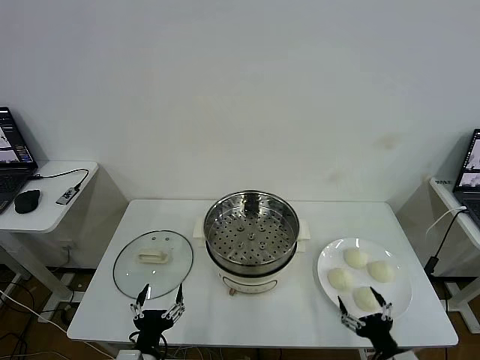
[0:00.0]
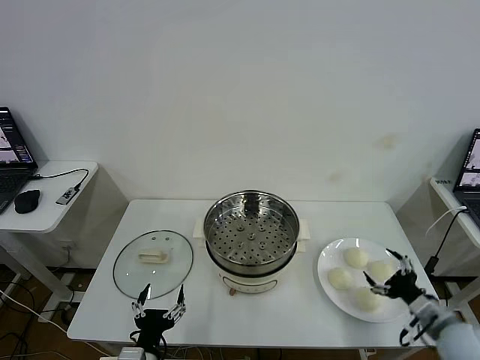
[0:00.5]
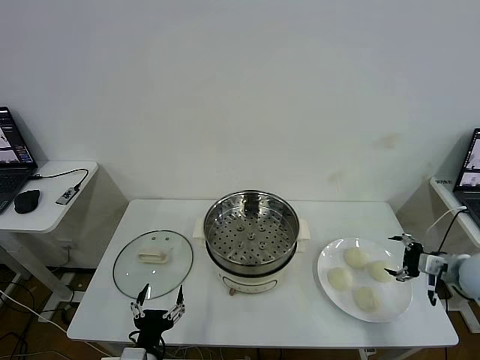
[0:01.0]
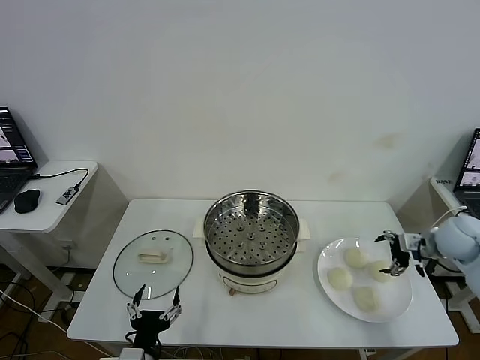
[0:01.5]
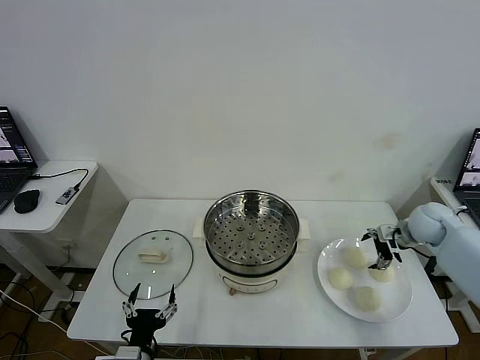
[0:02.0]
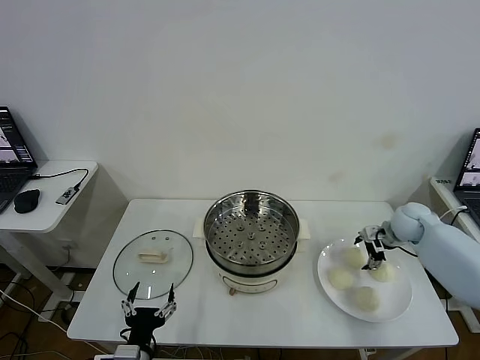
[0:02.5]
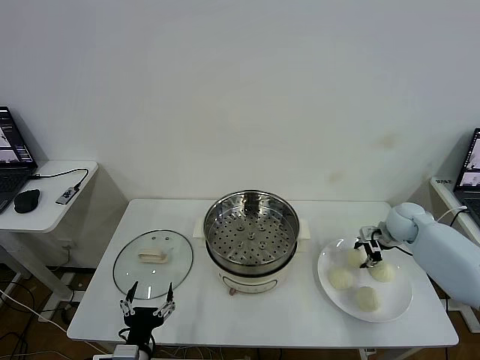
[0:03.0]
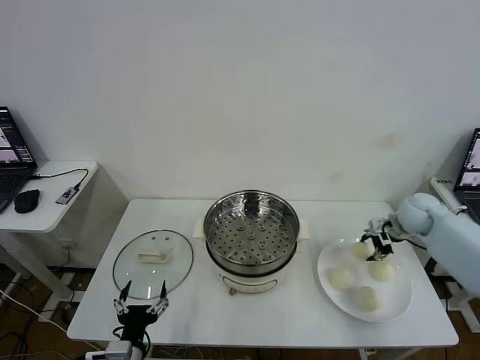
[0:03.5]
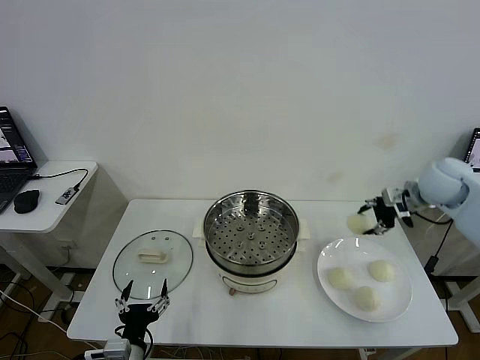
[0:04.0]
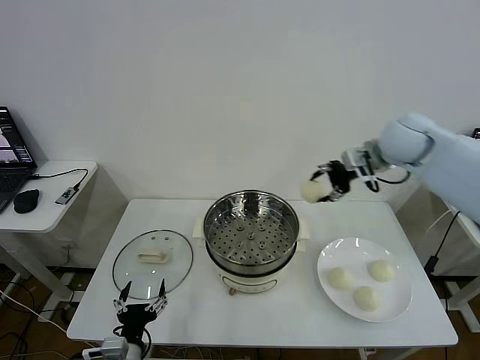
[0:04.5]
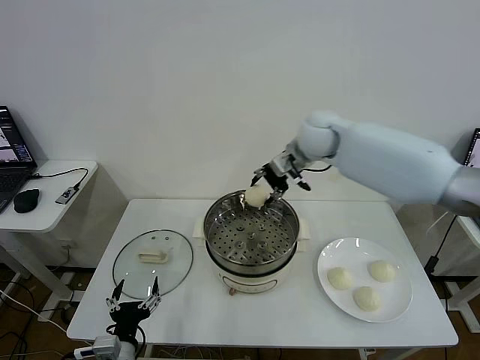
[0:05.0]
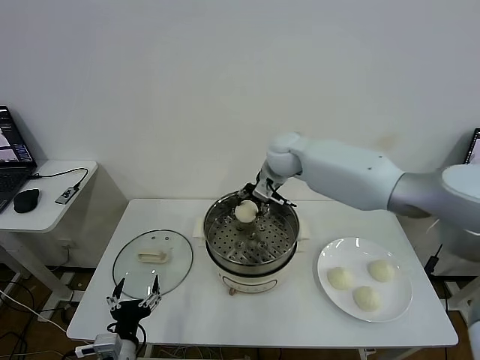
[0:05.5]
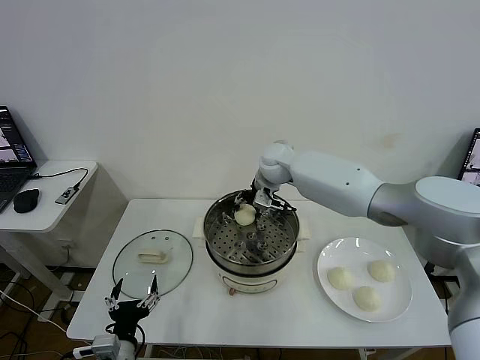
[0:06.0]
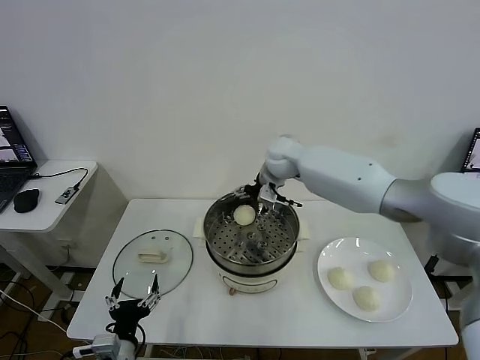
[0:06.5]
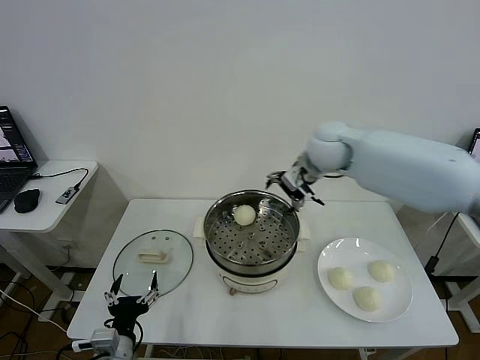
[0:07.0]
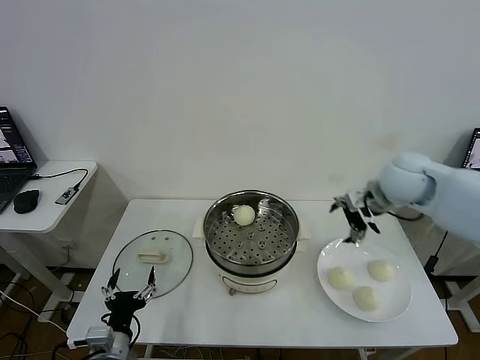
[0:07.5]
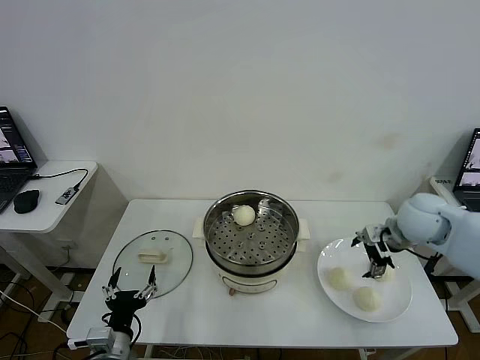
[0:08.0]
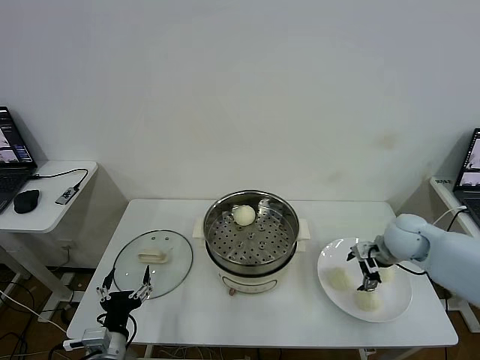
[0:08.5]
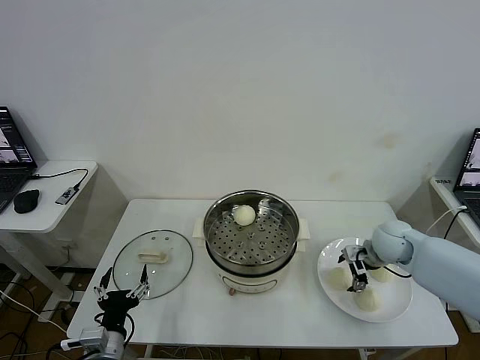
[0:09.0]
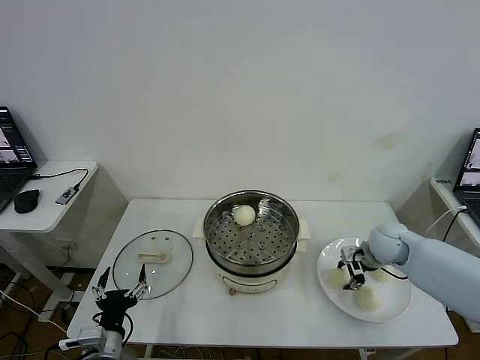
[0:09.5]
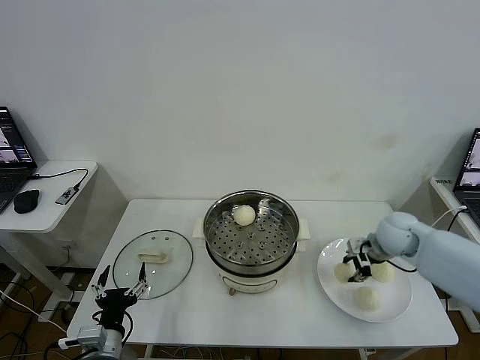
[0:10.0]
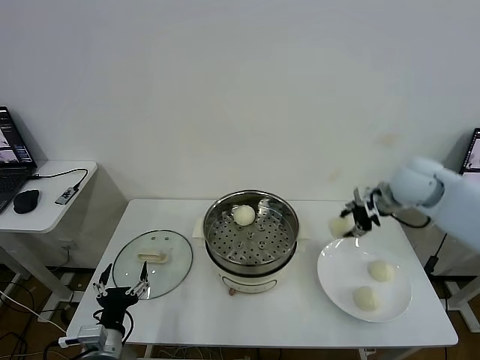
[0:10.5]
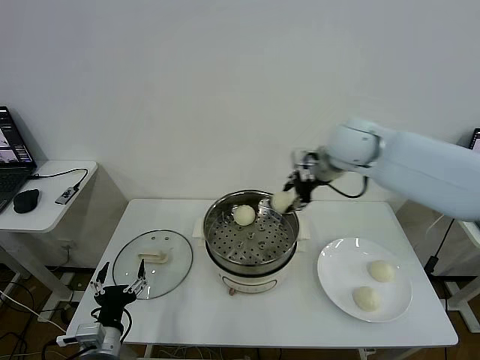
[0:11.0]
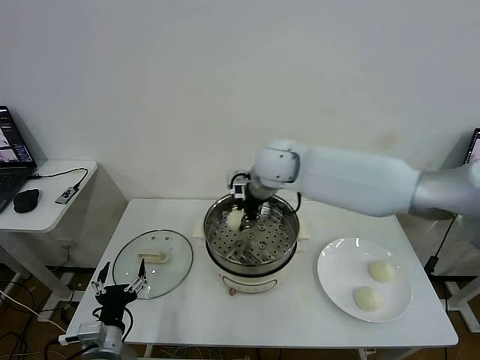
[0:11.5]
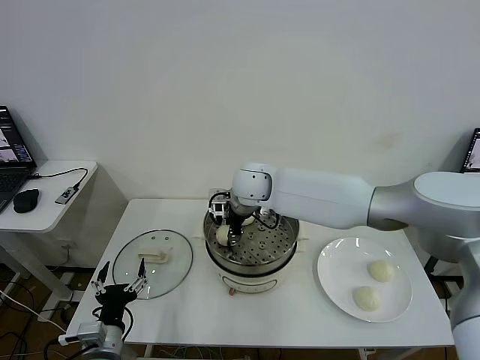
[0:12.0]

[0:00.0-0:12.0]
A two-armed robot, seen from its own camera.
Task of the whole recording: take steamed baozi put them in steamer then cover it.
Step, 0:00.0 to 0:02.5: Grasp the baozi in the plate with right gripper.
Step, 0:03.0 to 0:06.0: Place the baozi on the steamer with right gripper.
Step, 0:06.5 to 0:09.0: Grasp the baozi in the plate with right gripper.
0:02.0 to 0:04.0: The right gripper shifts roughly 15 cm upward, and closes.
0:04.0 to 0:06.0: The right gripper heads to the left, covering some 30 cm, and opens up.
0:06.0 to 0:08.0: The right gripper moves to the right and backward, about 35 cm, and opens its fingers.
0:08.0 to 0:10.0: The right gripper closes up.
0:10.0 to 0:12.0: The right gripper moves to the left, about 35 cm, and opens up.

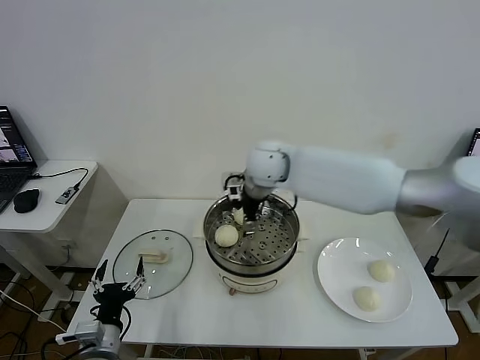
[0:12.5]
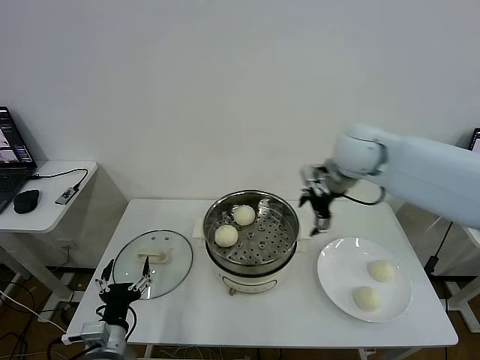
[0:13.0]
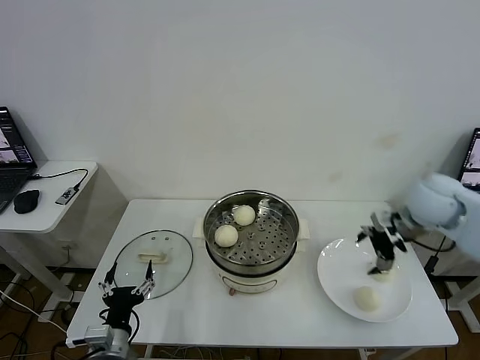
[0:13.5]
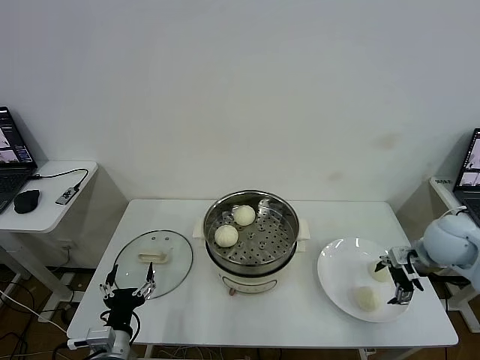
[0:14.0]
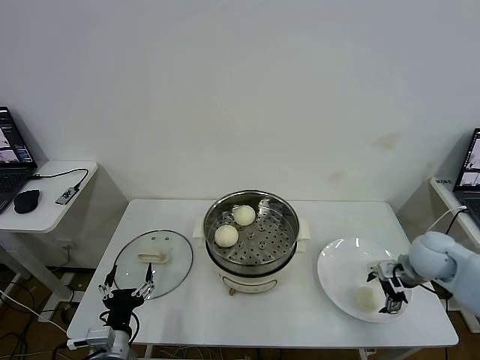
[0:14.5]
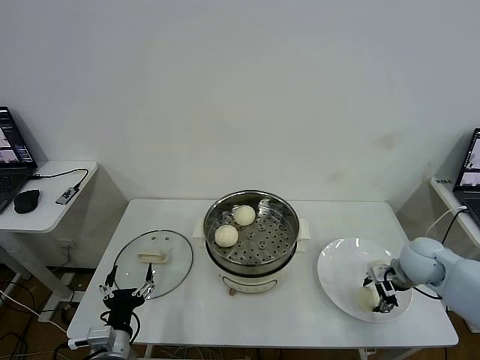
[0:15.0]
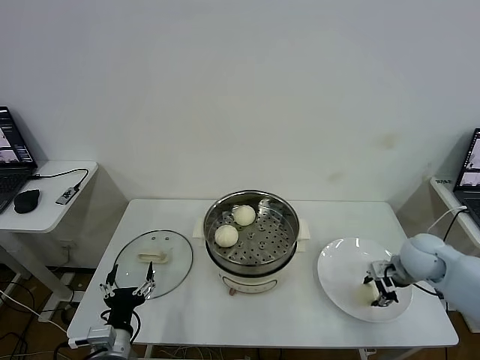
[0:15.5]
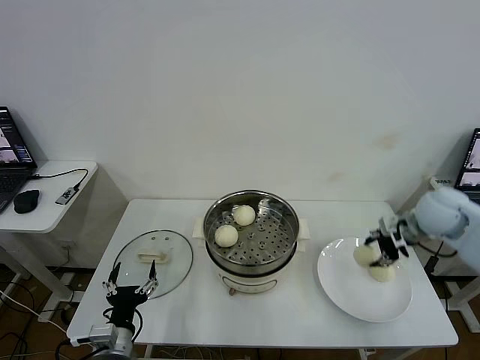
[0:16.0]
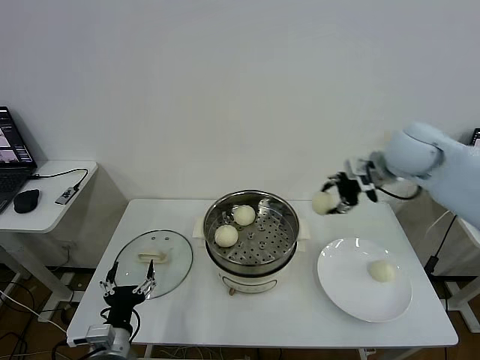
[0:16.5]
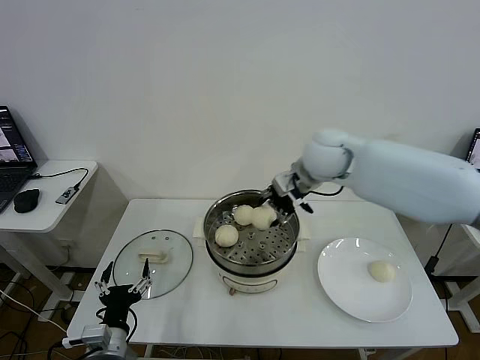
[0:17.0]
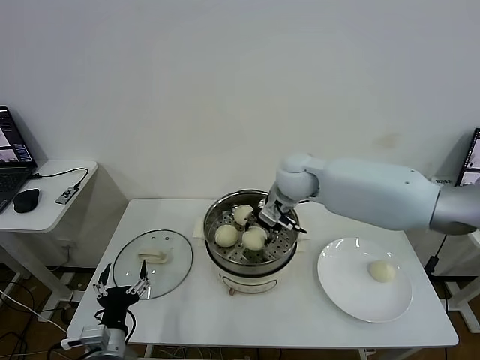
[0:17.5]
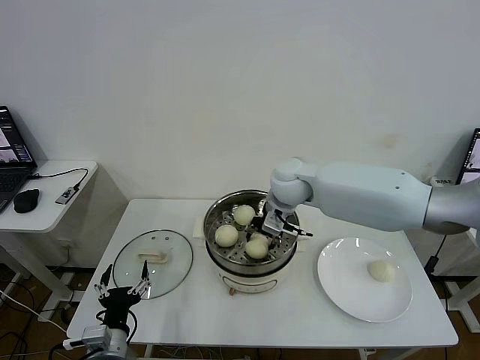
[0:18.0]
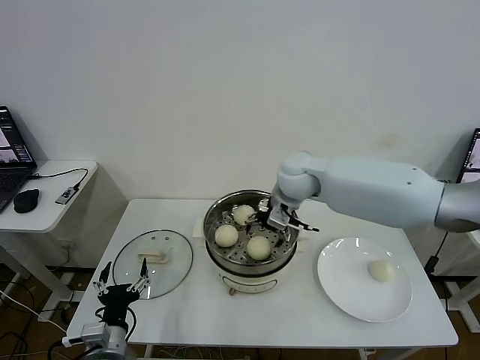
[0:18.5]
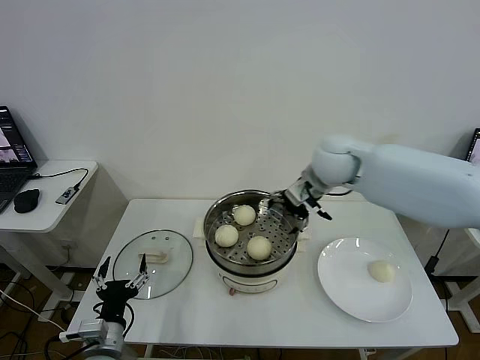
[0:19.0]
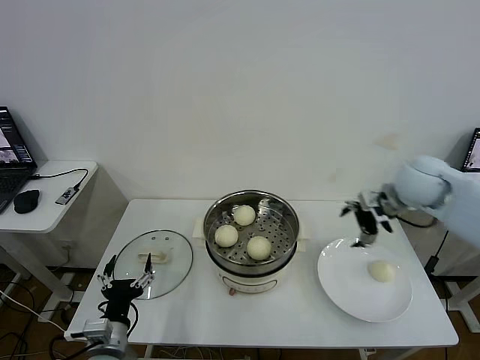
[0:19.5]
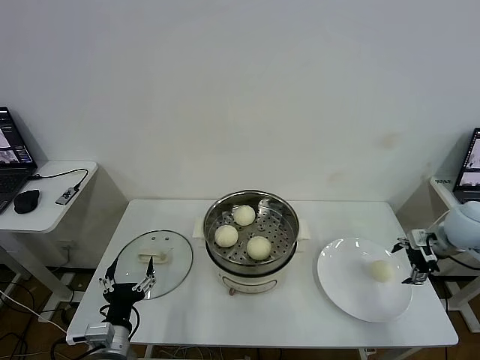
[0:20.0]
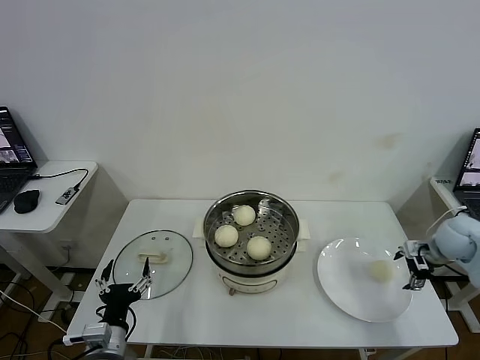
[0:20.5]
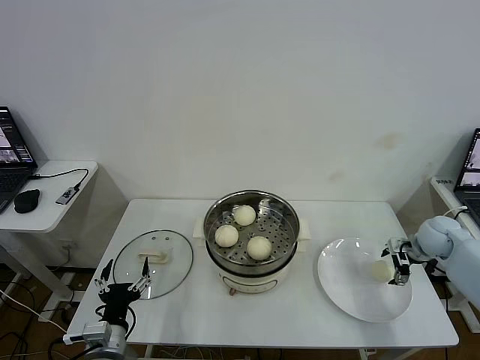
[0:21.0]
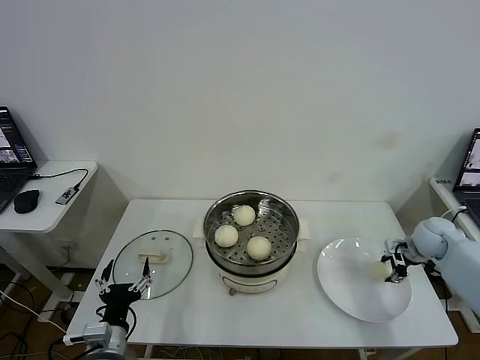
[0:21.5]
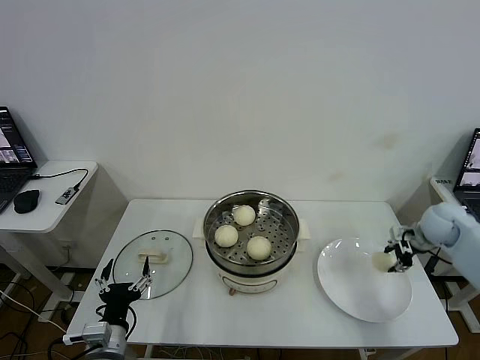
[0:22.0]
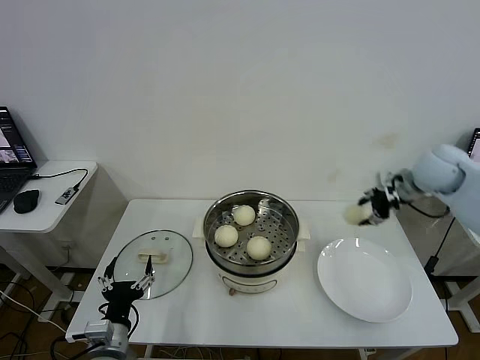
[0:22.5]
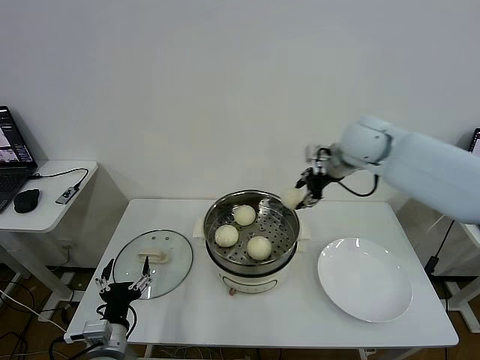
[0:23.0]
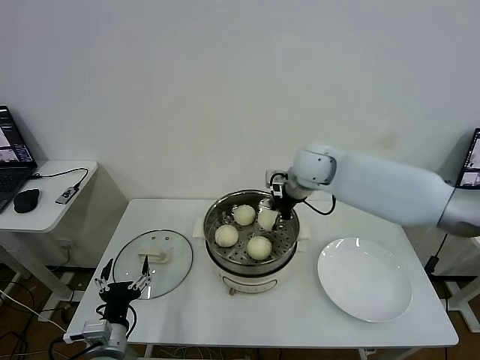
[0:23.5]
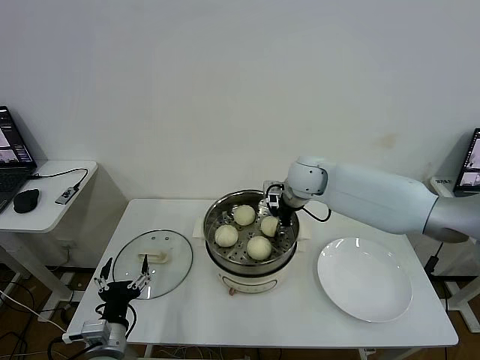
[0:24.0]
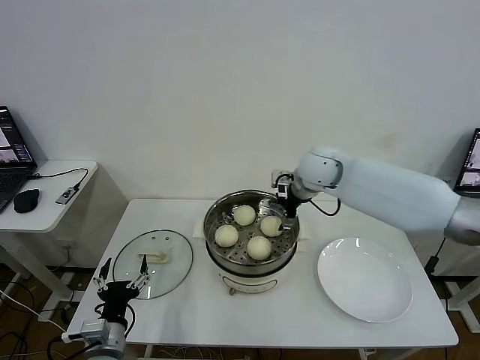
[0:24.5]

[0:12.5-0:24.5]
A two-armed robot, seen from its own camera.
Task of the whole recording: take steamed baozi put them in steamer then cover it.
Step, 0:12.5 to 0:15.0: Grasp the baozi in the plate with right gripper.
Step, 0:15.5 to 0:18.5: Place the baozi on the steamer with right gripper.
Step, 0:19.0 to 0:21.5: Grasp the baozi in the plate with right gripper.
Step, 0:22.0 to 0:24.0: Place the baozi on the steamer with right gripper.
0:12.5 to 0:14.5: The right gripper goes some 40 cm to the right and downward.
0:14.5 to 0:16.5: The right gripper goes approximately 25 cm upward, to the left and forward, and closes its fingers.
0:16.5 to 0:18.5: The right gripper travels to the left and downward by some 20 cm, and opens.
0:18.5 to 0:20.5: The right gripper is displaced to the right by some 40 cm.
0:20.5 to 0:22.5: The right gripper shifts roughly 20 cm upward, to the left and forward, and closes up.
0:22.5 to 0:24.5: The right gripper is displaced to the left by approximately 25 cm, and opens.

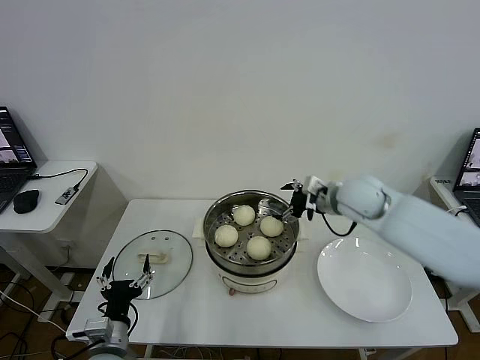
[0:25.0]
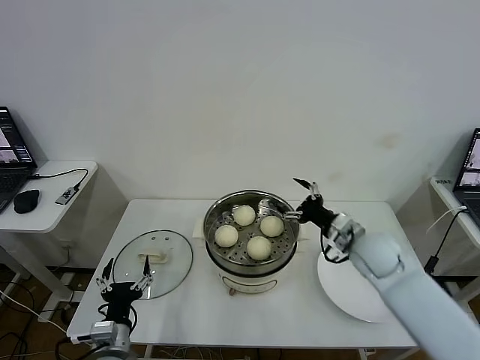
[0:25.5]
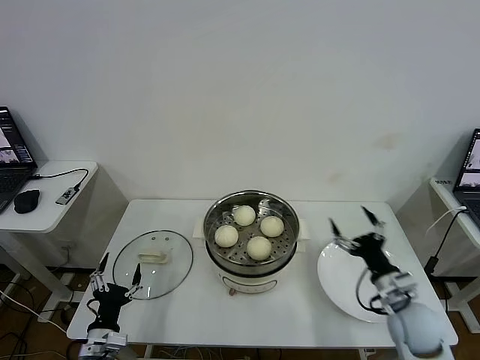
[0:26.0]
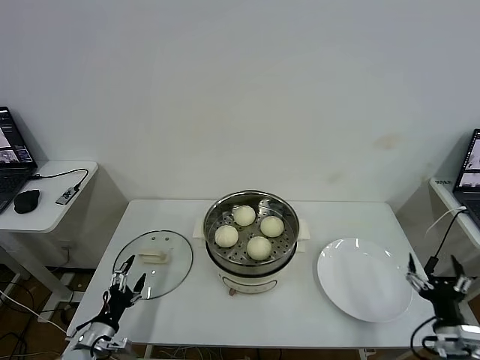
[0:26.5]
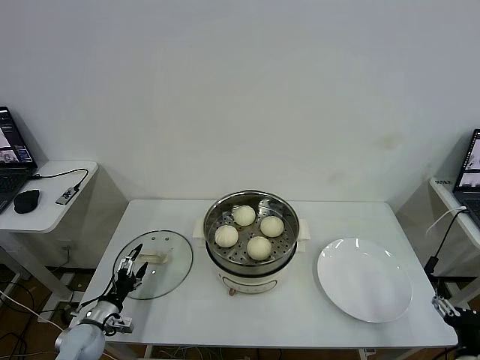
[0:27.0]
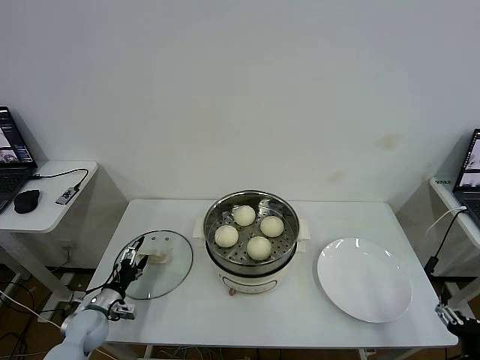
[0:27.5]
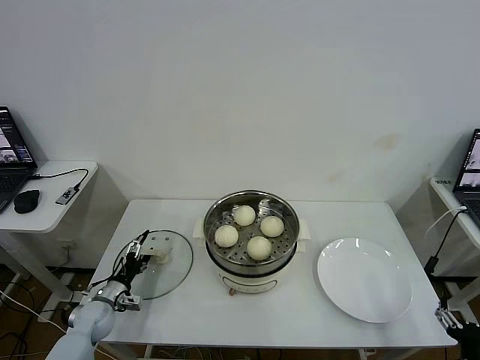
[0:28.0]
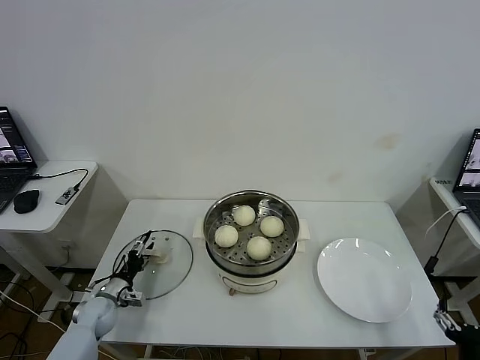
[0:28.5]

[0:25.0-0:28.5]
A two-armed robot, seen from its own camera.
Task of the whole recording: take steamed baozi put them in steamer then cover it.
0:25.0 to 0:27.0: The left gripper is displaced to the left, downward and forward by roughly 15 cm. Meanwhile the right gripper shifts approximately 40 cm backward, downward and to the right.
0:27.0 to 0:28.5: The left gripper moves forward, about 10 cm.
